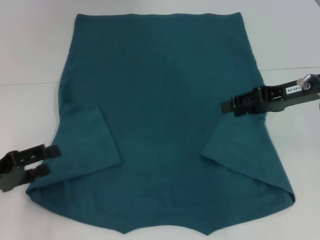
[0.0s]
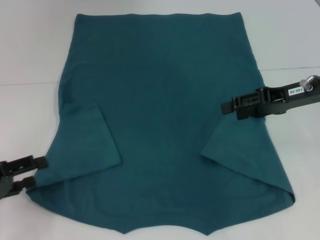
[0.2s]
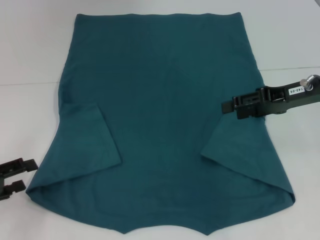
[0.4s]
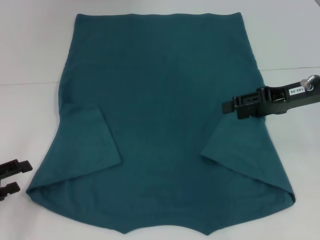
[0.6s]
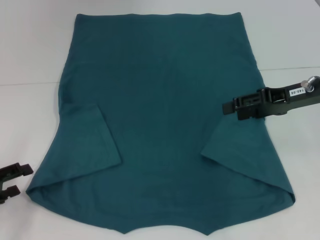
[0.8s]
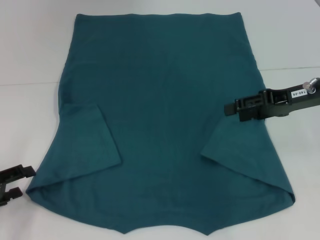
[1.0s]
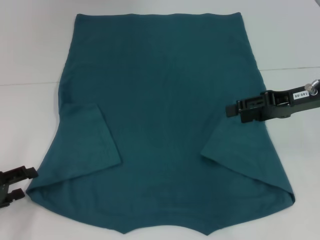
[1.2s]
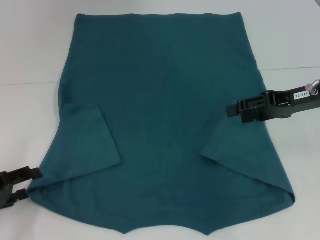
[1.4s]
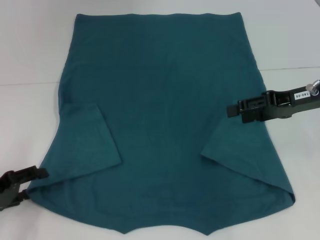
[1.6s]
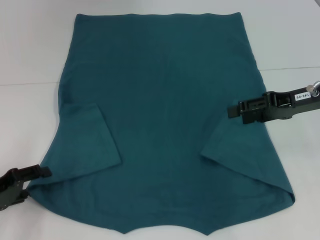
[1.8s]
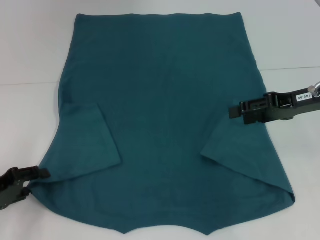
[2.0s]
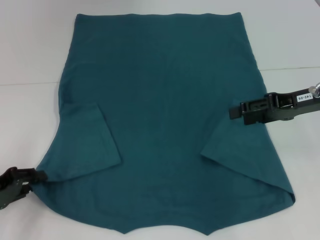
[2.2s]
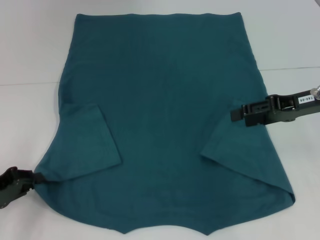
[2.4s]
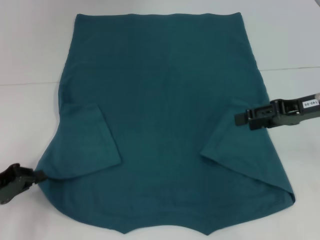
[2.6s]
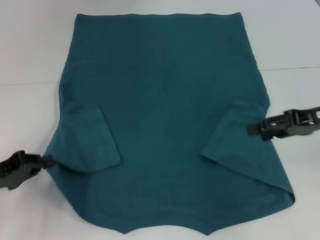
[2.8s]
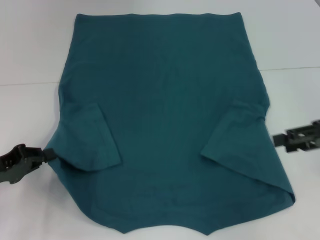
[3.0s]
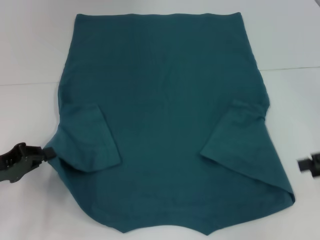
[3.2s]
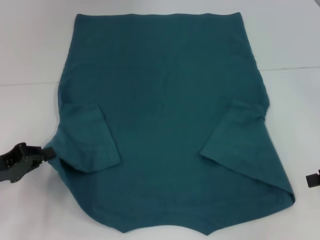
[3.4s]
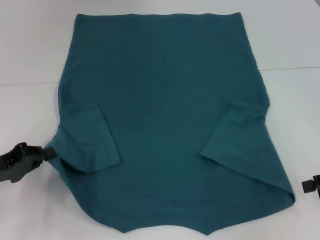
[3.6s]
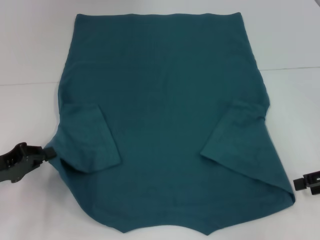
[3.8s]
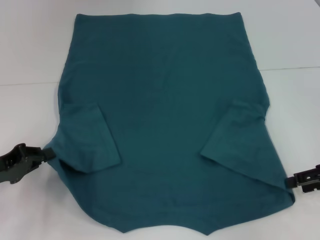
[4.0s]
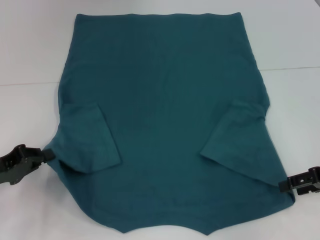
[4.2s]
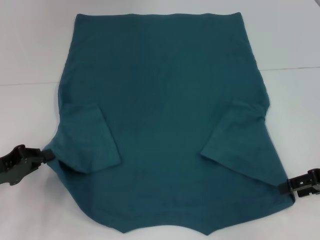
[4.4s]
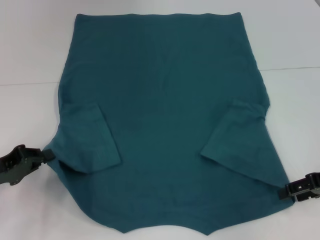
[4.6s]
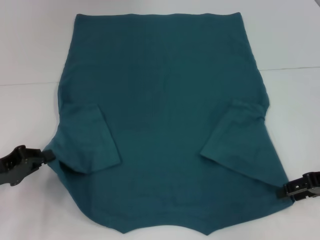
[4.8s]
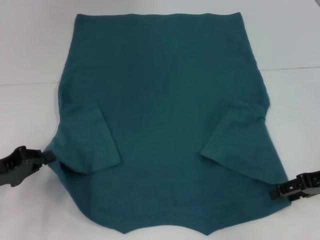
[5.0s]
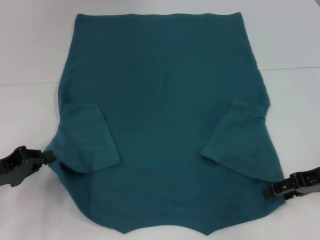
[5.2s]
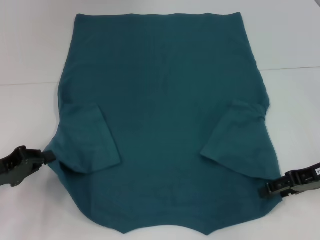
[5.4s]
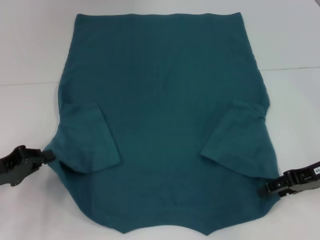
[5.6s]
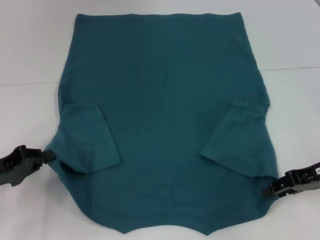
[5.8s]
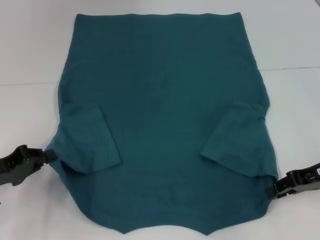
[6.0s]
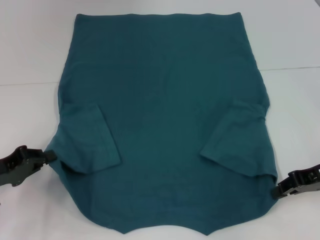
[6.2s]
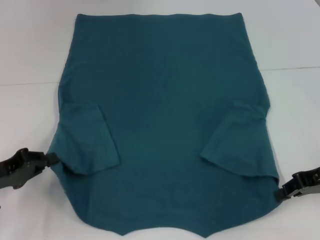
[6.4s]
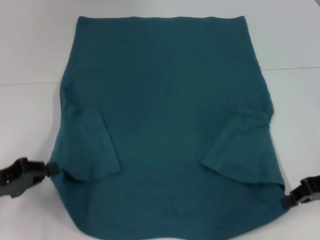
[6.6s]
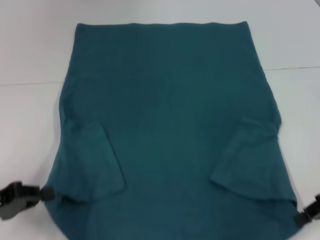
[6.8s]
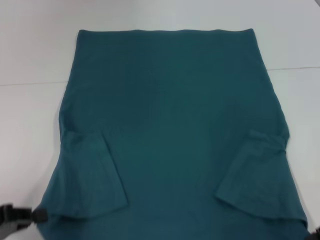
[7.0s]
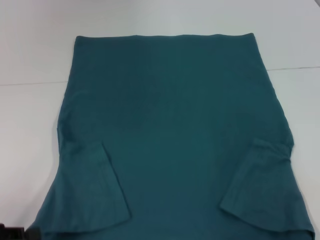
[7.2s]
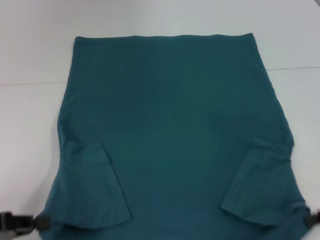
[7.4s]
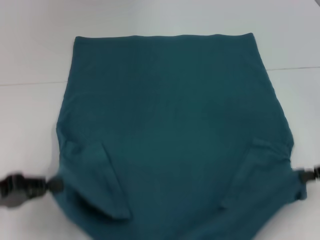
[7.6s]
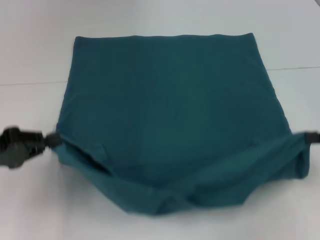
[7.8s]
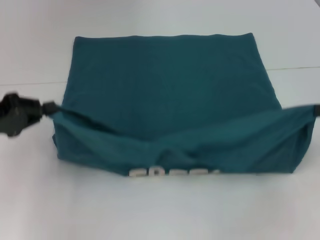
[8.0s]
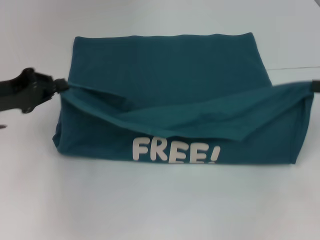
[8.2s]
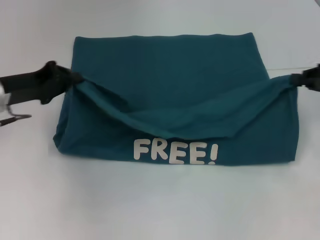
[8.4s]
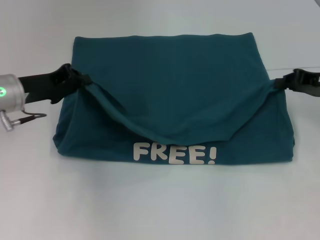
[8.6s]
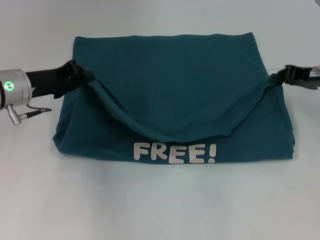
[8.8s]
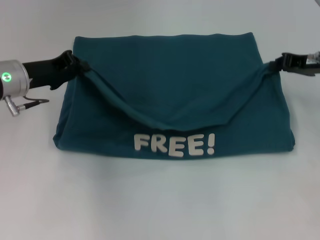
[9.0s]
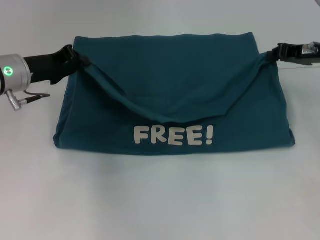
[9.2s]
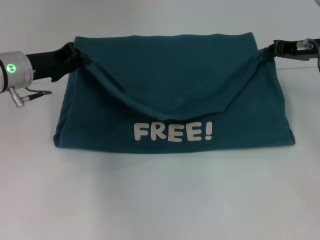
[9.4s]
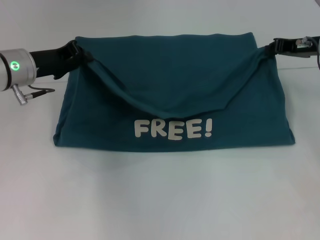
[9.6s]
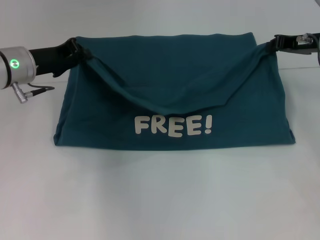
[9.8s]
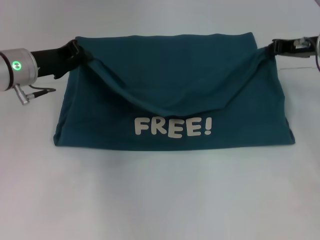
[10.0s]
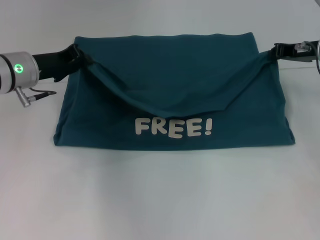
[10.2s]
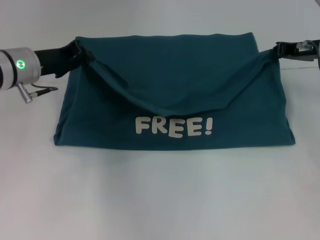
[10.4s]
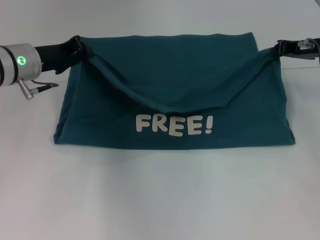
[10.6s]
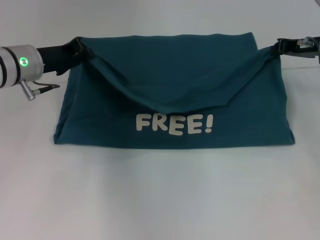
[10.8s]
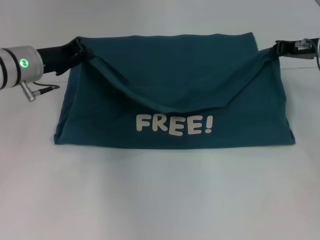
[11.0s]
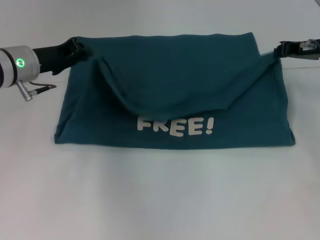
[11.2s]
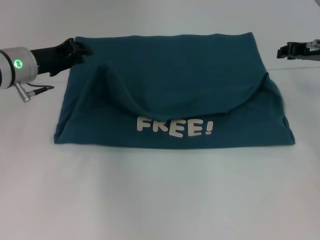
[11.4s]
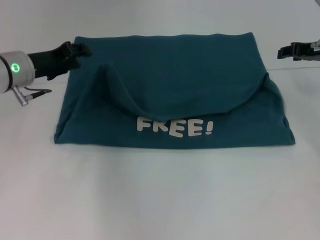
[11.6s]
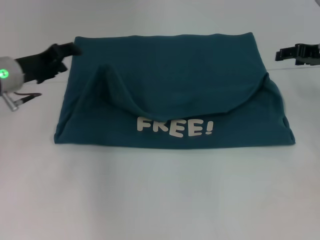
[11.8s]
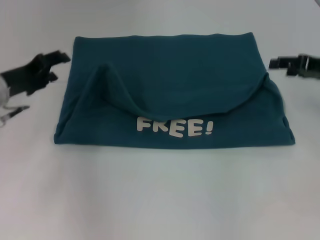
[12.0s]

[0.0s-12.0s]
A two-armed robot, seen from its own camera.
Step, 0.0s to 2.4s: Grab the bottom left corner with your left hand.
Step, 2.6s to 6.2s: Grab the bottom right corner with your right hand.
Step, 6.4s to 11.2s: Fold the clothes to the left.
Step, 6.4s to 11.2s: Fold the clothes to the right.
0.0s to 1.6s: There are only small adjustments of the grippers.
1.6s to 3.0s: The right gripper heads to the right, covering some 5 cm; the left gripper closes its fingers.
3.0s to 4.4s: The right gripper heads downward, covering approximately 5 cm.
4.4s to 6.0s: The grippers make only small movements.
6.0s to 7.6s: The right gripper goes approximately 5 cm to the right, and closes.
7.6s to 9.0s: The right gripper shifts some 15 cm forward. Meanwhile the left gripper shifts about 20 cm forward and to the right.
9.0s to 10.4s: There are only small adjustments of the grippers.
10.4s to 12.0s: The left gripper ends up some 5 cm from where it was, and opens. Meanwhile the right gripper travels backward by about 5 cm, and opens.

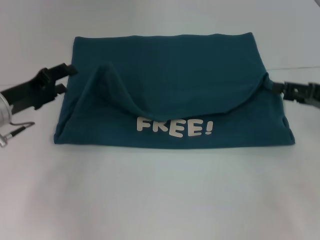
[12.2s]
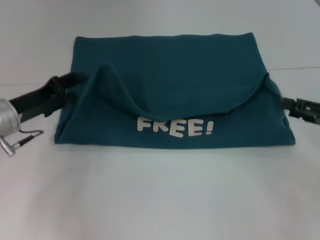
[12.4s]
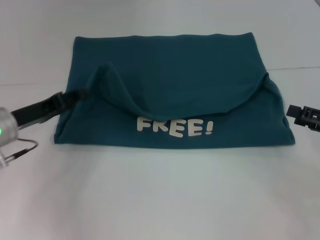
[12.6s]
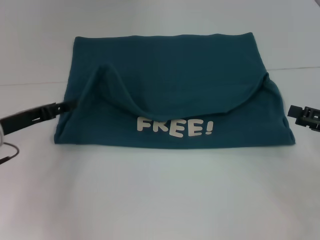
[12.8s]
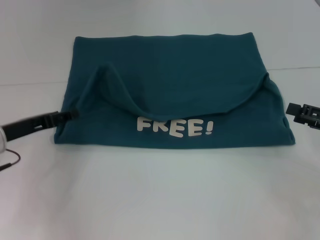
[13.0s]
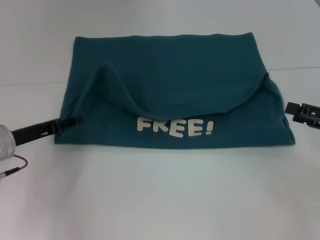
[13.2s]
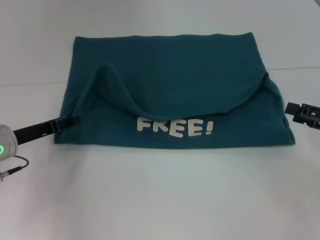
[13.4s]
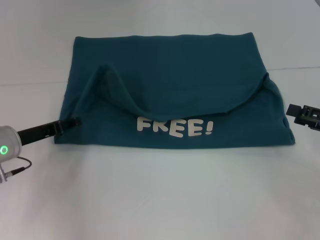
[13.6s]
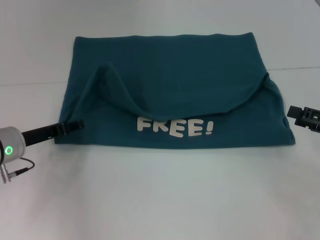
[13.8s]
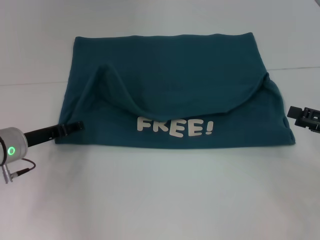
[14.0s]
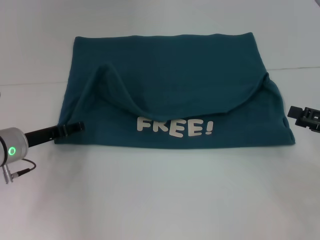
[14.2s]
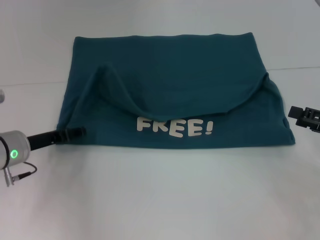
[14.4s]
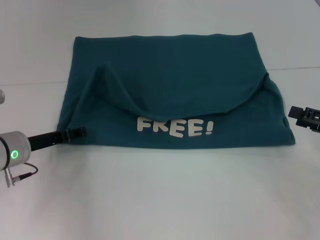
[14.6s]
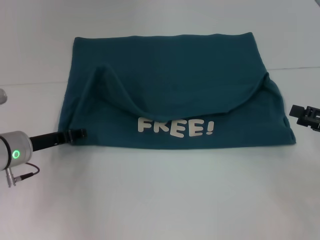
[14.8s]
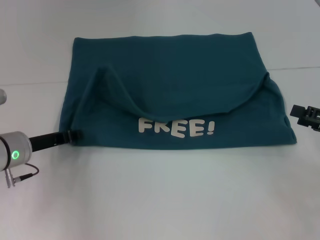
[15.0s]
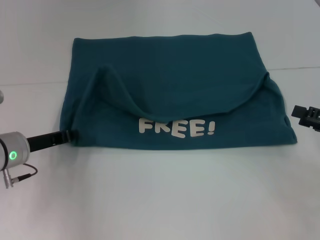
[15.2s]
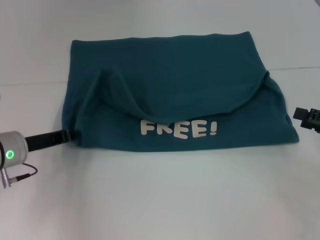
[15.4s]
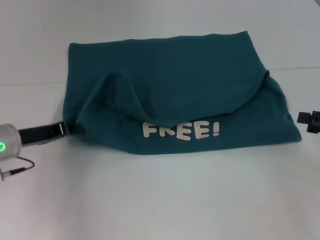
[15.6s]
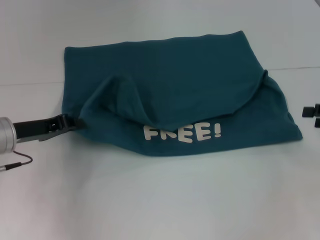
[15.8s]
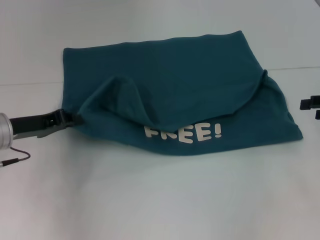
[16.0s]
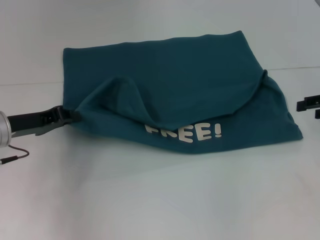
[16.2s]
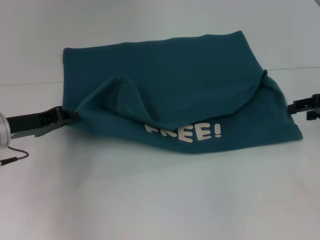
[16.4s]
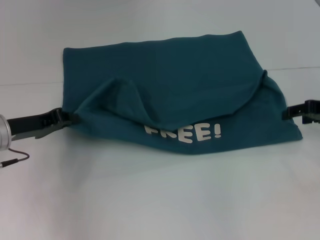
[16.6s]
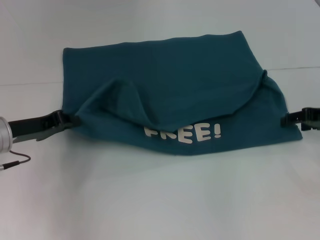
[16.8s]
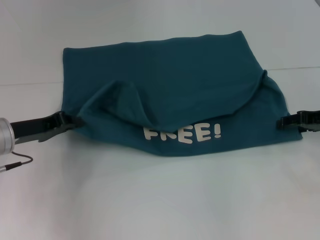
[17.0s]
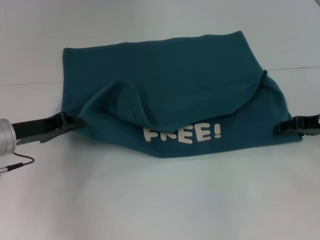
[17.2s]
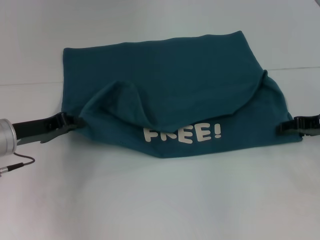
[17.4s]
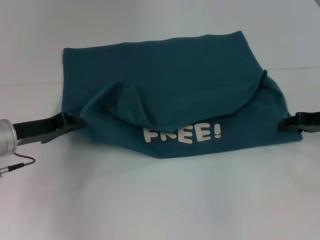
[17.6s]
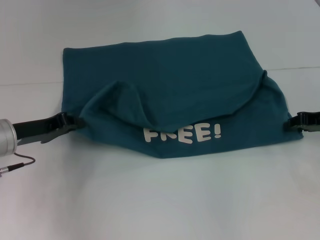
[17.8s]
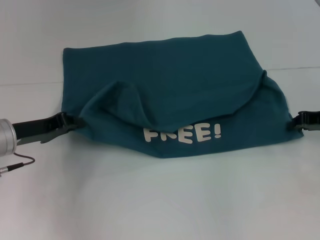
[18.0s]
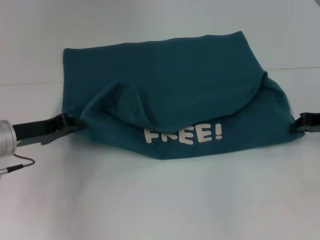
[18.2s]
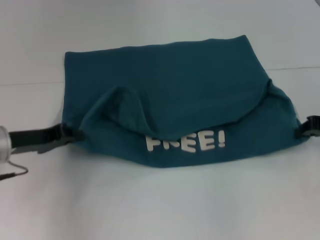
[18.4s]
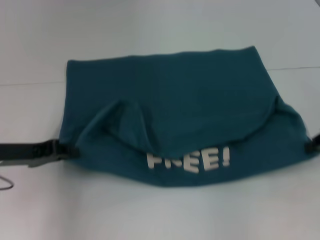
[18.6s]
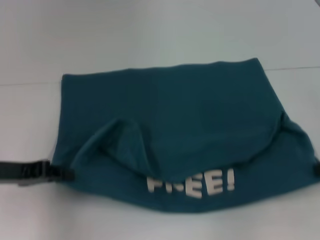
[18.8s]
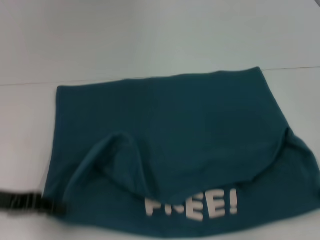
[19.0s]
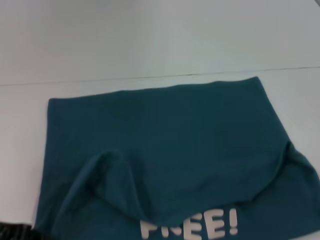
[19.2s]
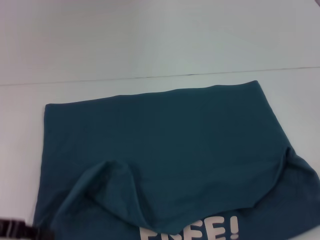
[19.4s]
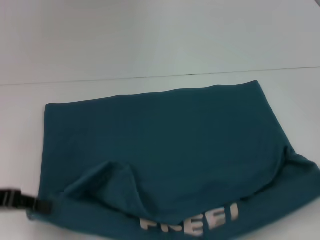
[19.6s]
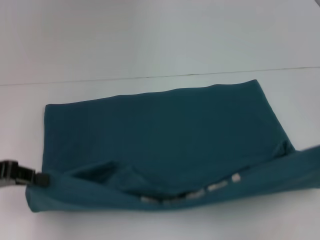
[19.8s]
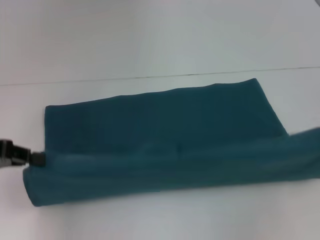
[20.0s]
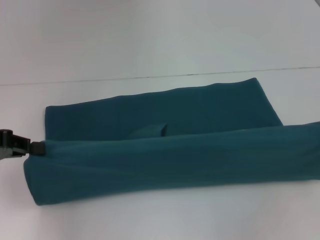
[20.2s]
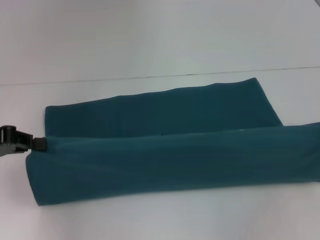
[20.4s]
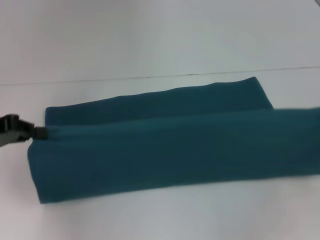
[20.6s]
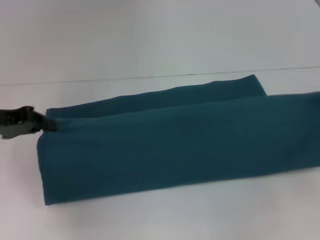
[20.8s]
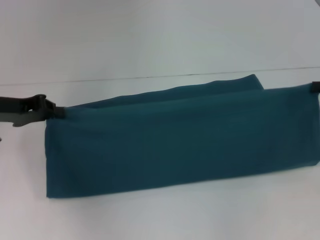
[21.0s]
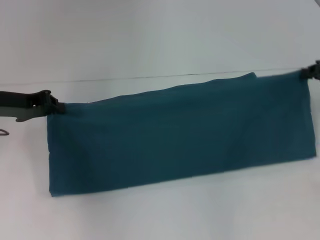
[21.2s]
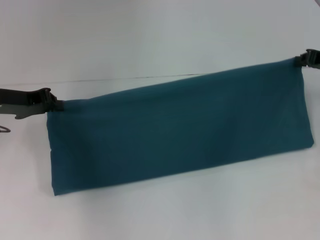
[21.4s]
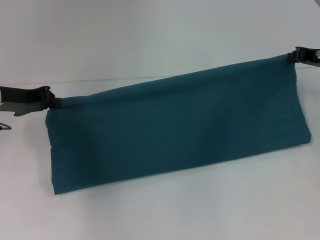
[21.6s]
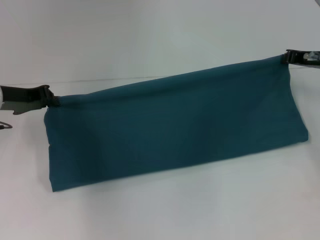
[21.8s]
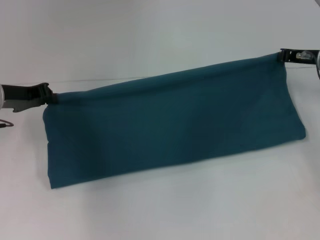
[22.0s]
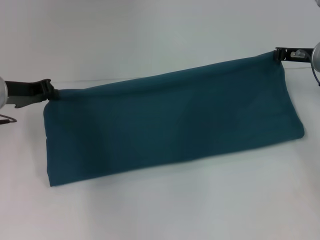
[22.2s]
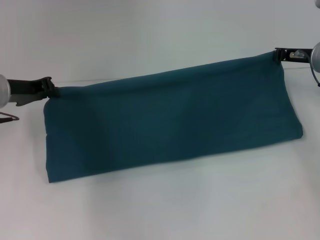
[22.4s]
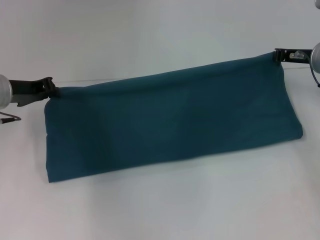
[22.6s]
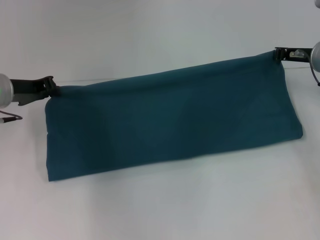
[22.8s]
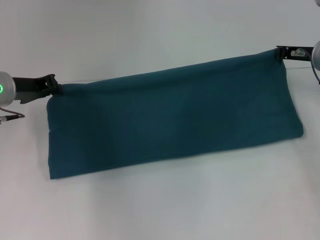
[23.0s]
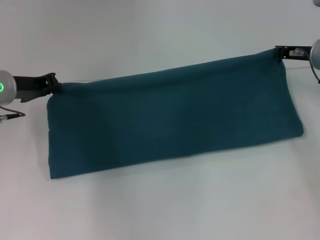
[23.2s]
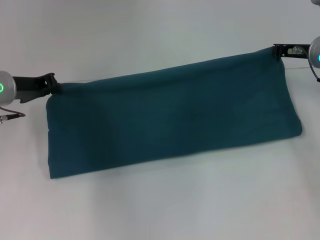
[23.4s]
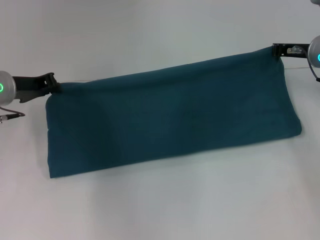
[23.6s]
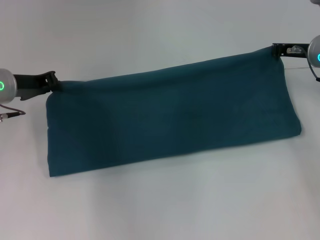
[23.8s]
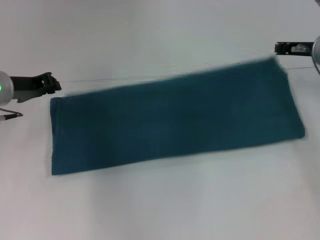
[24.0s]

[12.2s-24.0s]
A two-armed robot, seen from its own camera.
Step, 12.2s to 19.0s: Pull the clothes with your left hand.
Step, 12.2s to 19.0s: Pull the clothes with your right hand.
Step, 19.2s to 24.0s: Fold the clothes to the right.
12.2s to 13.6s: The left gripper goes about 5 cm downward. Meanwhile the right gripper travels backward by approximately 5 cm.
13.6s to 15.2s: The left gripper closes.
15.2s to 16.6s: The right gripper shifts about 10 cm forward.
16.6s to 18.2s: The right gripper closes its fingers.
18.2s to 19.6s: The left gripper shifts roughly 10 cm backward and to the left. Meanwhile the right gripper goes about 10 cm backward and upward.
19.6s to 21.0s: The two grippers go roughly 10 cm forward.
21.0s to 22.6s: The left gripper changes place by roughly 5 cm; the right gripper heads to the left and forward, covering some 15 cm.
22.6s to 24.0s: The grippers make only small movements.
